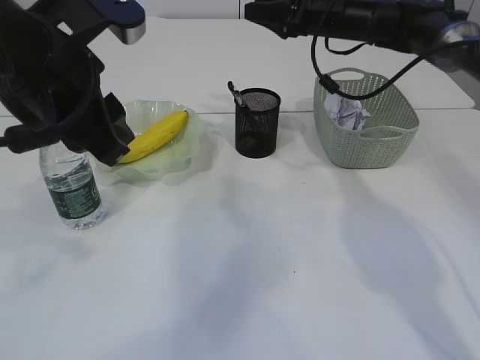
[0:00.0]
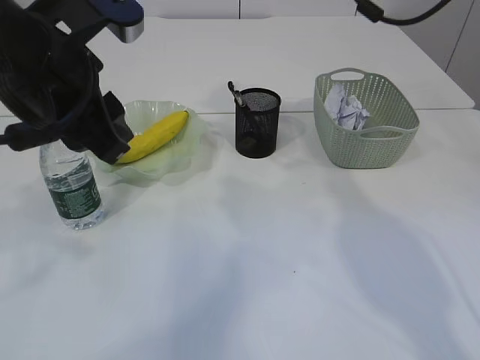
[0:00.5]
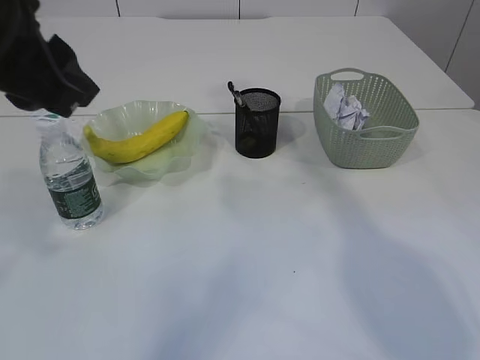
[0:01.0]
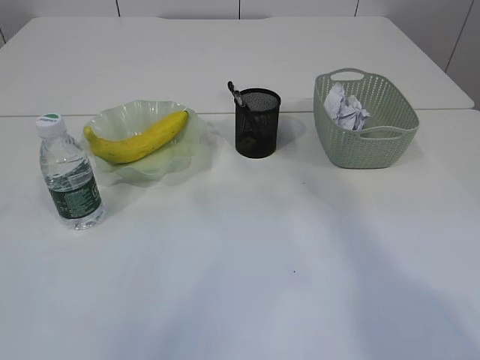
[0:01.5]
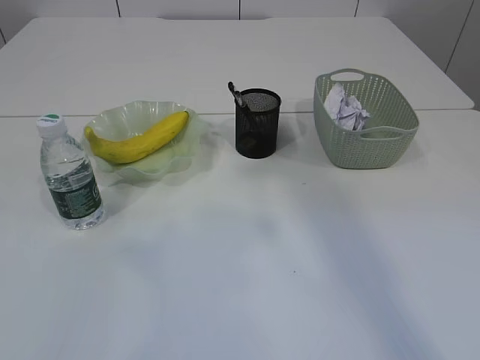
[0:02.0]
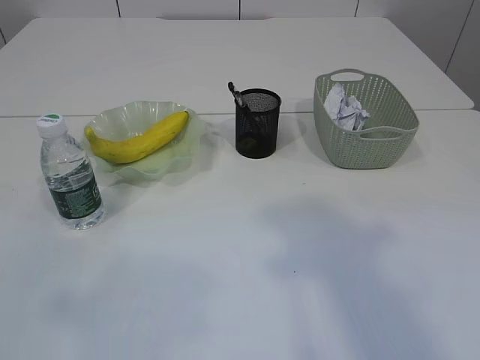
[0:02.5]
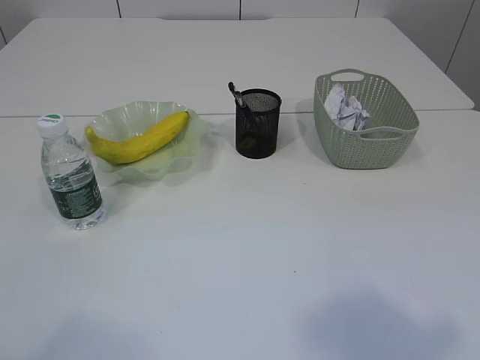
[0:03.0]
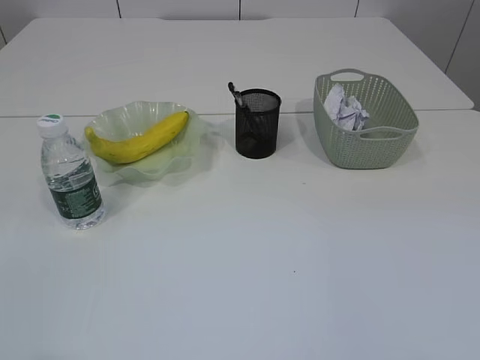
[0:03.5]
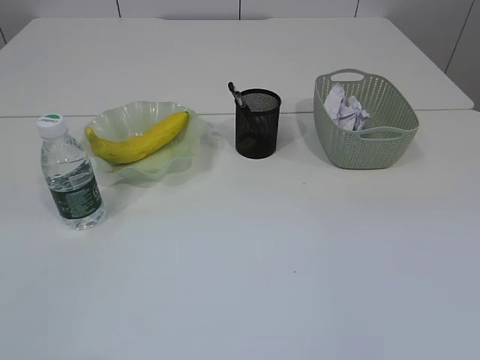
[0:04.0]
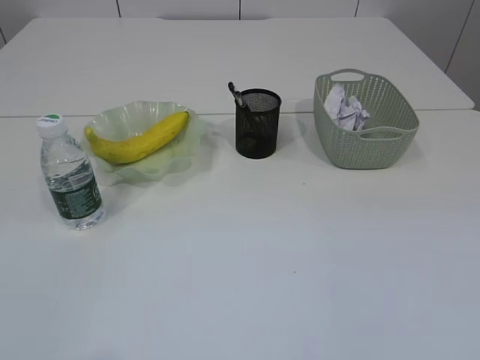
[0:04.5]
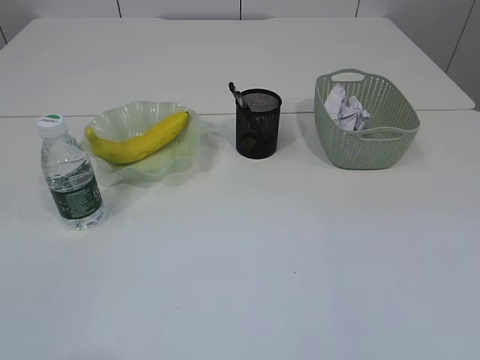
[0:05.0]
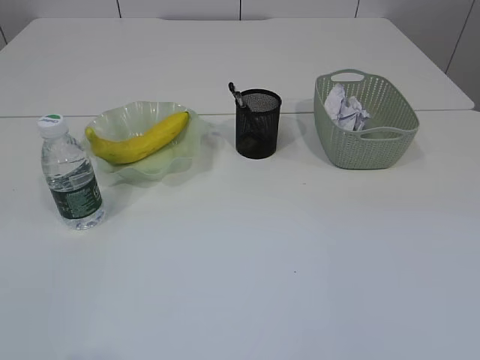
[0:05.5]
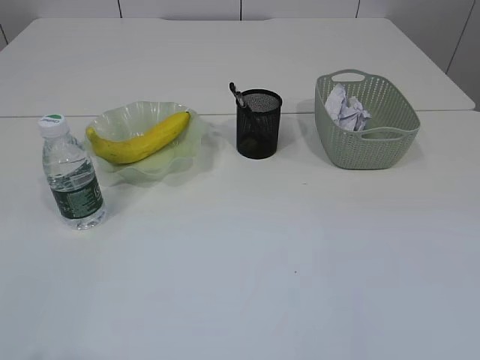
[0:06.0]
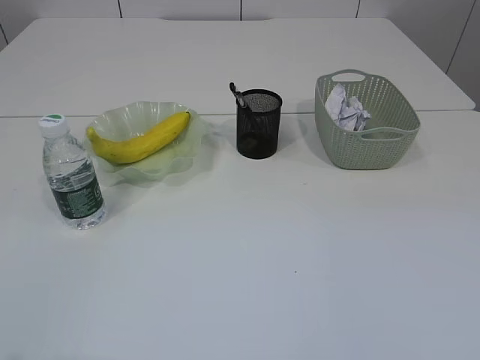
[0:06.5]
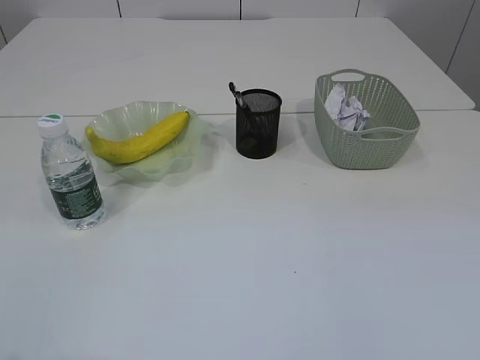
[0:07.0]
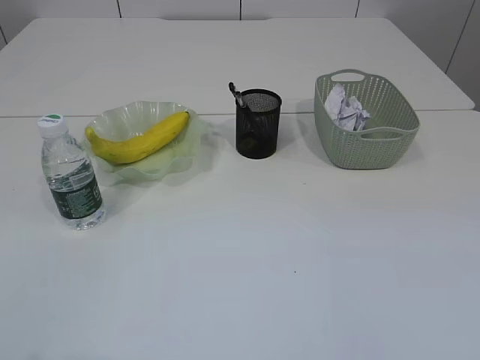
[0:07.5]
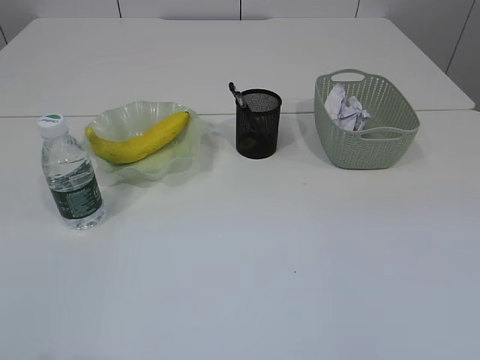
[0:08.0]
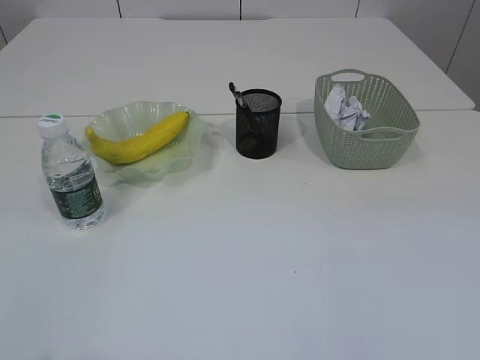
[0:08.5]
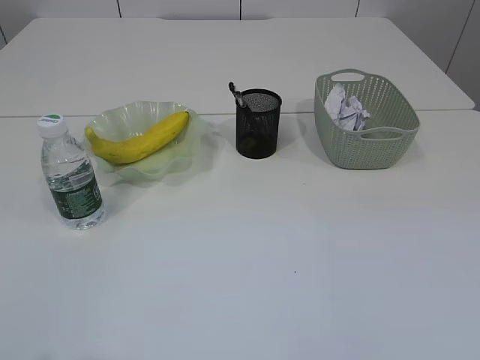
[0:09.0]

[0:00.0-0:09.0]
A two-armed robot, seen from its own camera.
0:00.0 to 0:02.0: The left gripper shifts approximately 25 cm backward, to the left and upward. The right gripper heads backward and upward, covering roughly 40 cm.

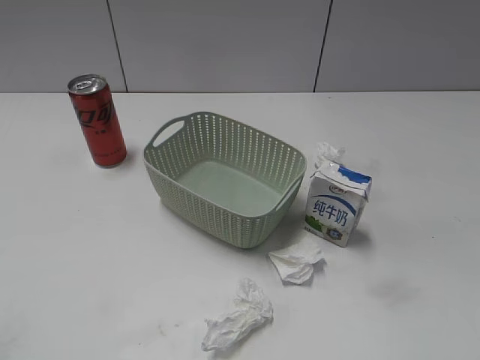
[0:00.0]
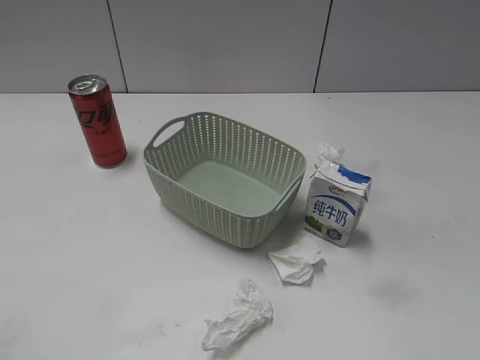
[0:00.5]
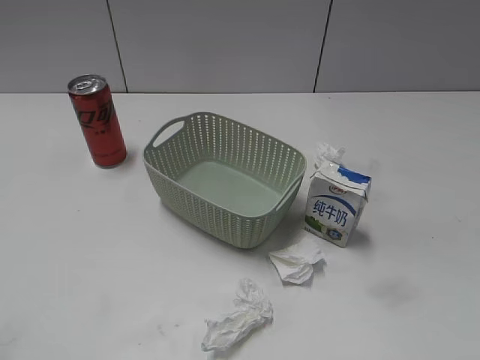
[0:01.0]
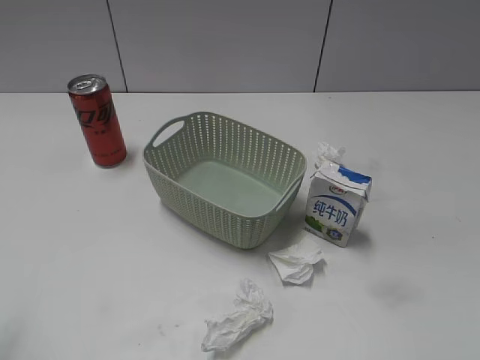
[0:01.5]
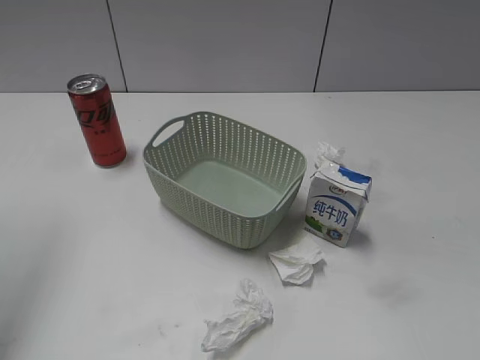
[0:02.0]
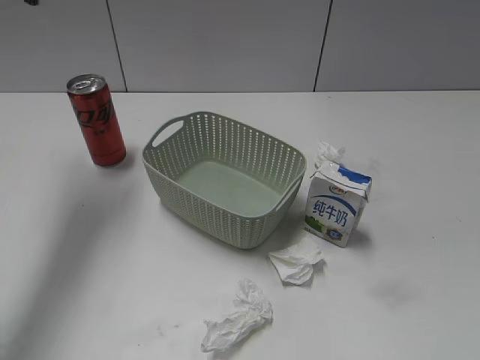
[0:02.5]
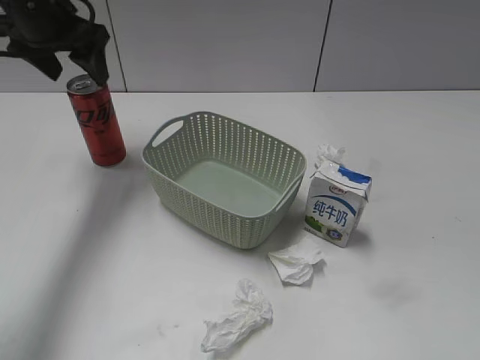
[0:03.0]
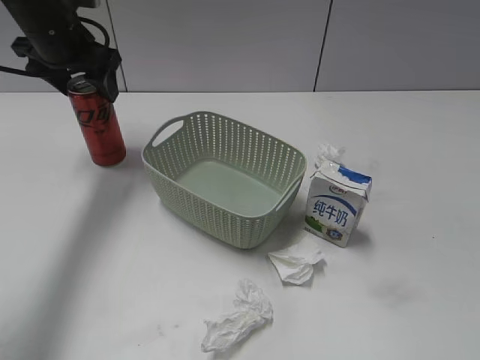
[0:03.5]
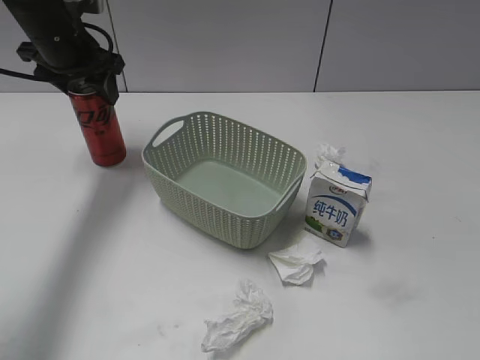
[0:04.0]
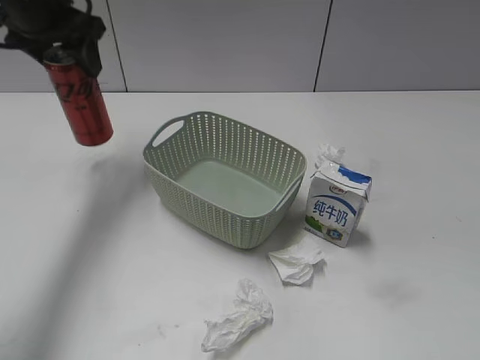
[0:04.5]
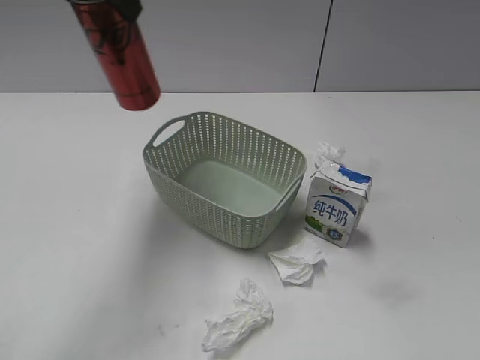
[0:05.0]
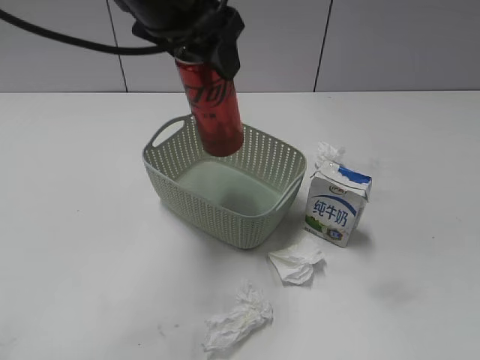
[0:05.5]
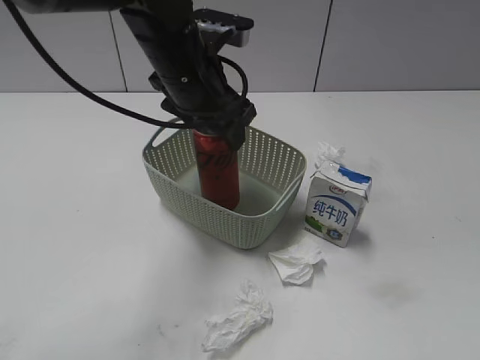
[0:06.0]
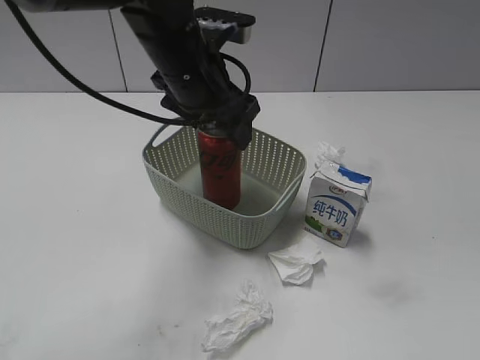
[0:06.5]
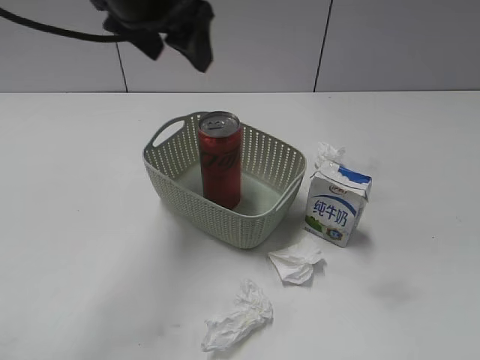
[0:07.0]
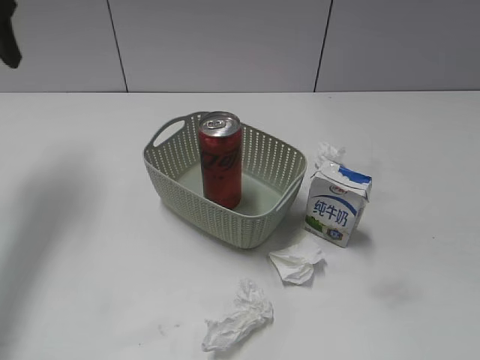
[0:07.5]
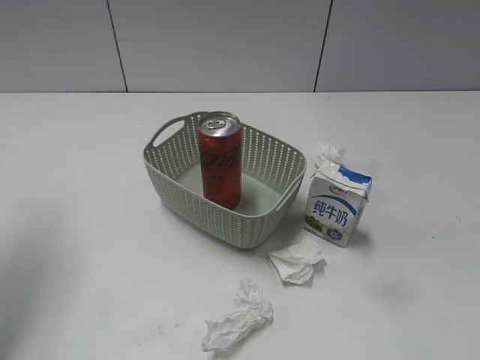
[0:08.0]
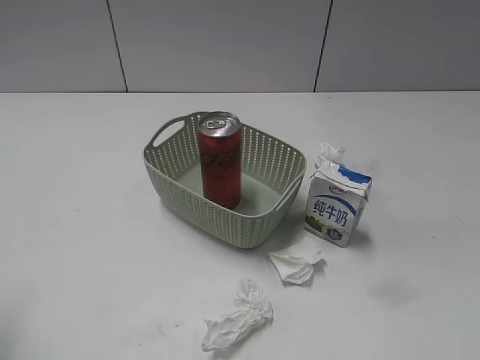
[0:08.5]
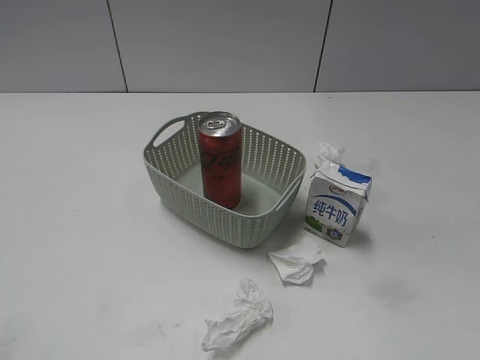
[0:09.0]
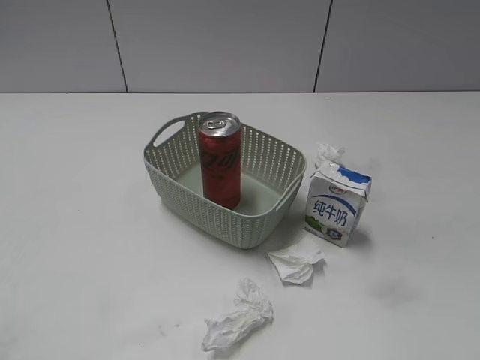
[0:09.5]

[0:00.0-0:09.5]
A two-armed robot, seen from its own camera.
Step, 0:02.5 to 0:04.0: Grasp the cola can with left gripper.
Step, 0:04.5 to 0:06.5: Place the cola can in the basket with left gripper.
0:02.0 to 0:04.0: The left gripper is displaced forward, downward and to the right by some 30 cm, and closes.
0:04.0 to 0:05.5: The left gripper is displaced to the right, backward and upward by about 20 cm.
0:05.5 to 0:07.5: The left gripper is displaced to the left by roughly 20 cm, and opens up.
0:07.5 to 0:09.5: The left gripper moves backward, some 35 cm.
